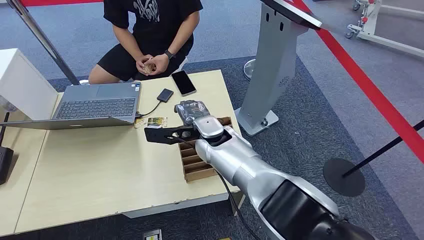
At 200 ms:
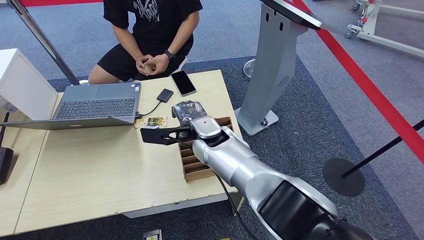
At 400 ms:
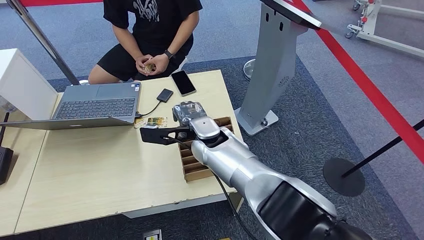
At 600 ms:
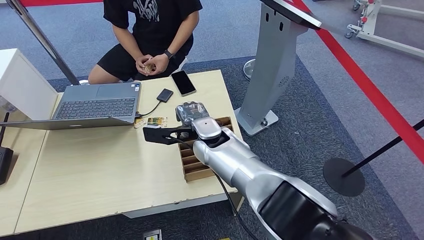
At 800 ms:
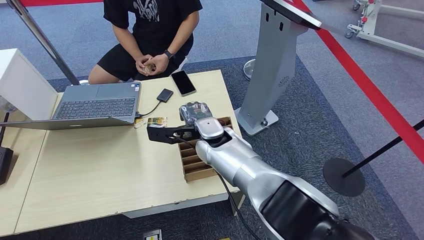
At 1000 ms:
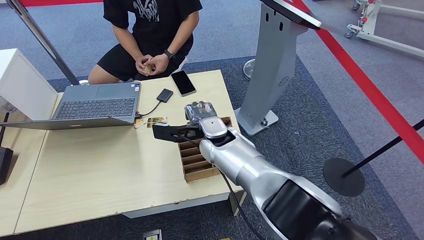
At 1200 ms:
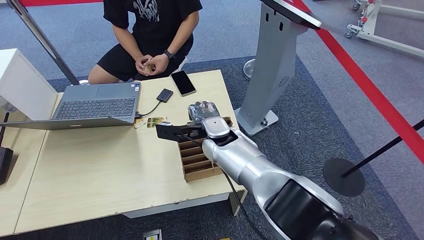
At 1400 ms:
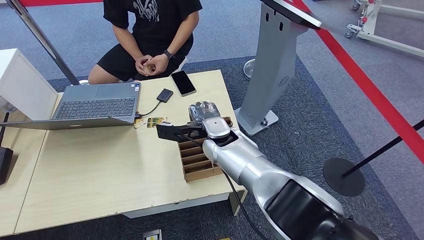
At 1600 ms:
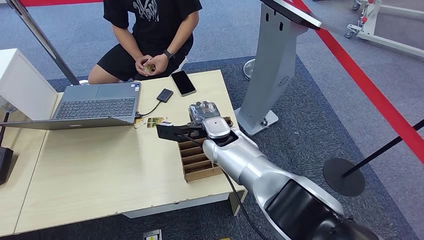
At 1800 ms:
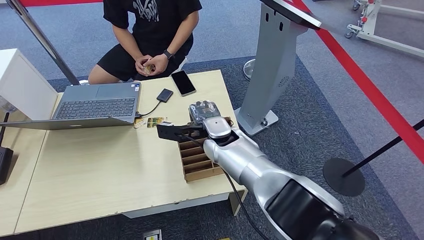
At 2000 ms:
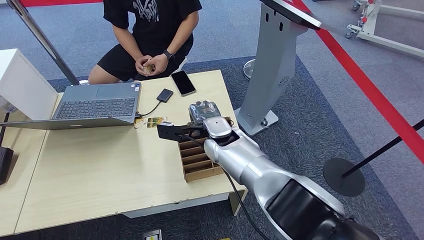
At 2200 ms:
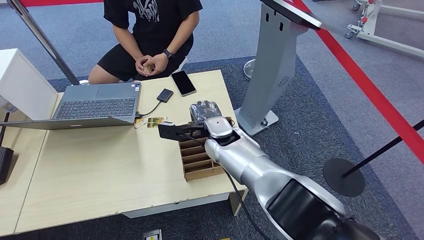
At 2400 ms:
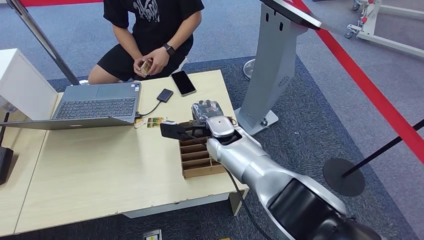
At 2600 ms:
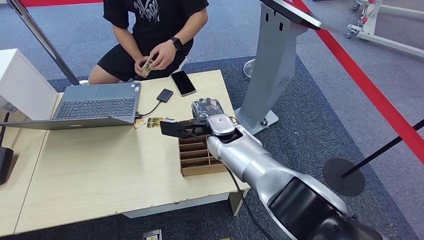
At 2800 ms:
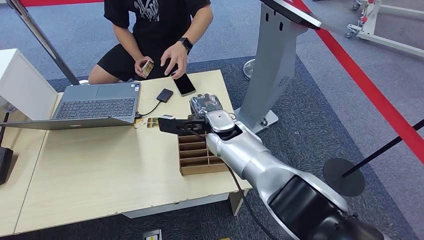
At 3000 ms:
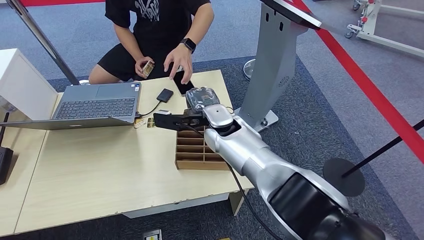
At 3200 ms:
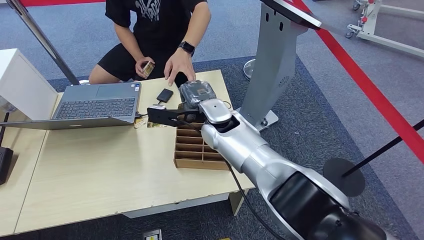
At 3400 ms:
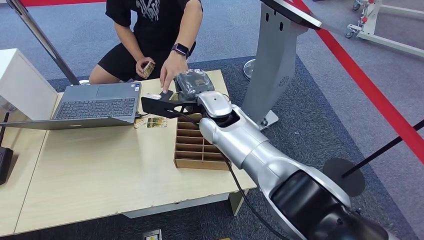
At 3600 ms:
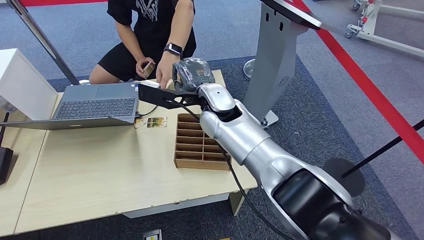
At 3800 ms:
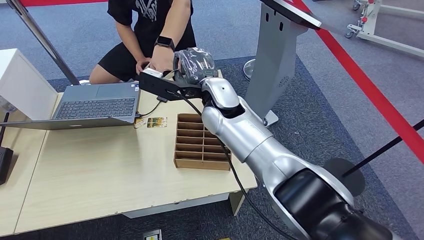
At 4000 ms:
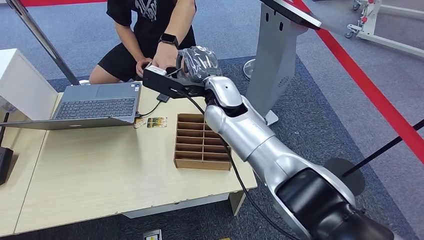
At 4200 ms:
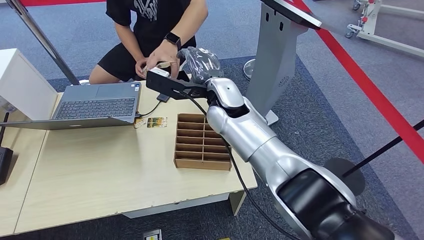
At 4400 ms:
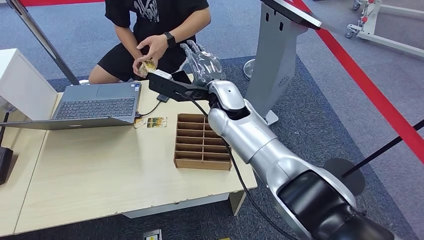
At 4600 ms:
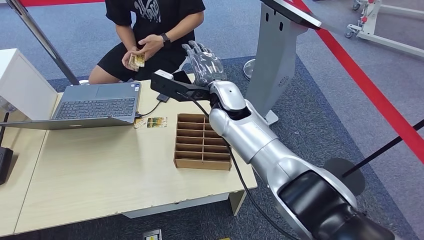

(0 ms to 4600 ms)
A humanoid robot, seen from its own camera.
Step, 0 ms - 3000 ms: Pick up the key card from the card box.
Step, 3200 ms - 4600 ms: Hand the key card to the target.
1600 ms - 3000 ms: The hands make only small movements.
3000 ms - 4600 ms: The right hand travels upward by some 5 cm.
